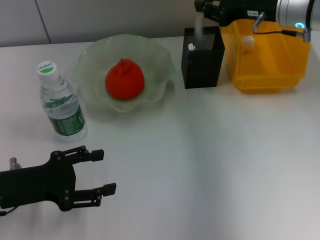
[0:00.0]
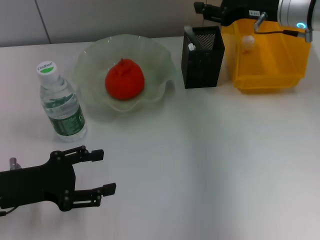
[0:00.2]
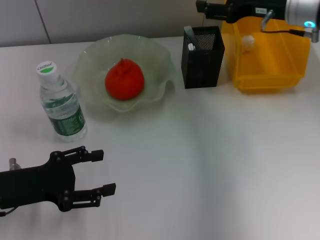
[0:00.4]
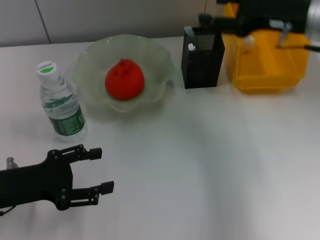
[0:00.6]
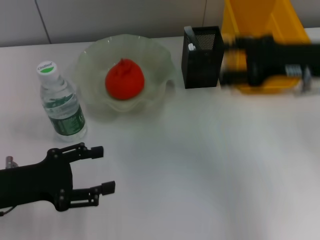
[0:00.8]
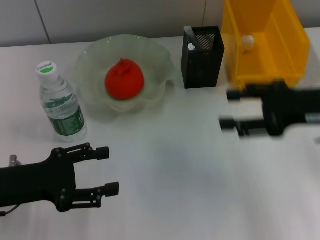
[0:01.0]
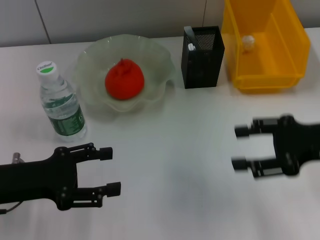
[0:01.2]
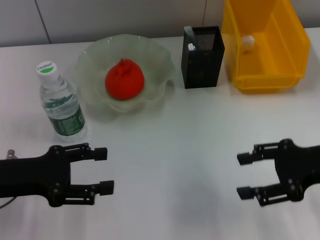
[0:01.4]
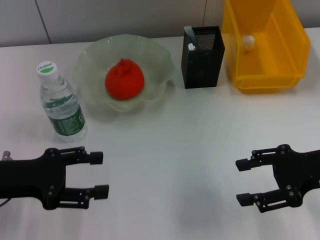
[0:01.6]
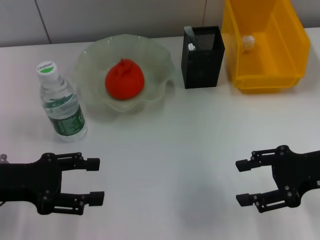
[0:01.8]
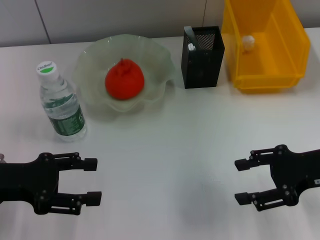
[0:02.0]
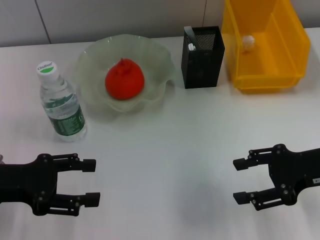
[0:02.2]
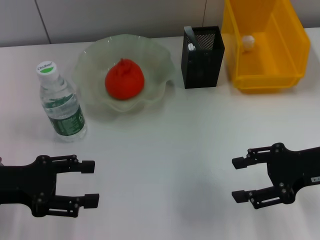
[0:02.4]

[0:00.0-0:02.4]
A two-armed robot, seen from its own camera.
0:00.0 to 0:01.2: The right gripper travels backward by approximately 20 cm, and opens its fingers.
0:01.2 to 0:02.4: The grippers stay close to where they were, moving slightly.

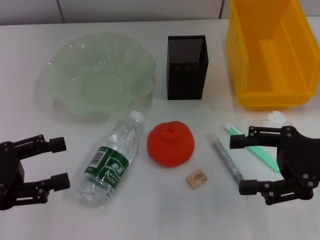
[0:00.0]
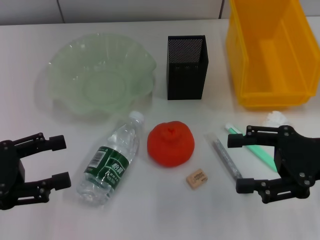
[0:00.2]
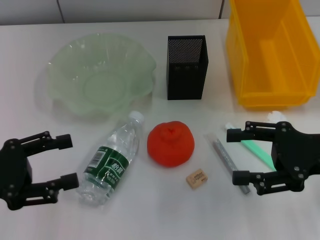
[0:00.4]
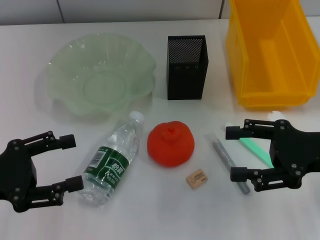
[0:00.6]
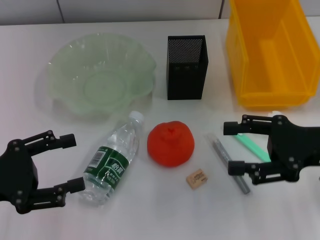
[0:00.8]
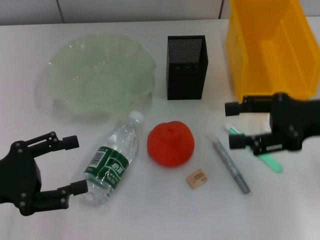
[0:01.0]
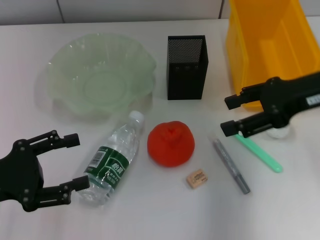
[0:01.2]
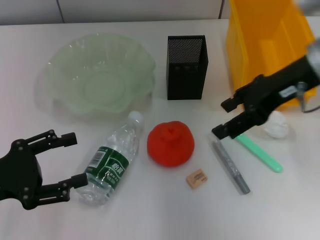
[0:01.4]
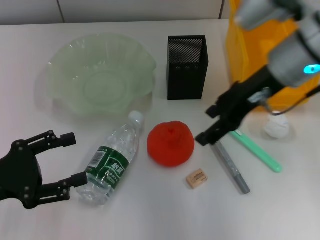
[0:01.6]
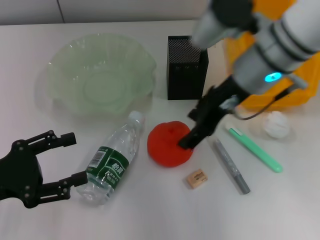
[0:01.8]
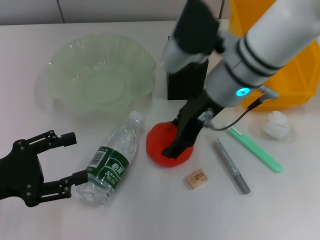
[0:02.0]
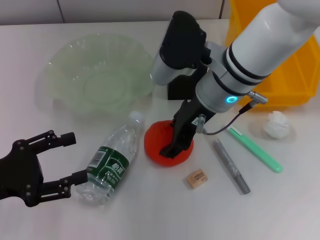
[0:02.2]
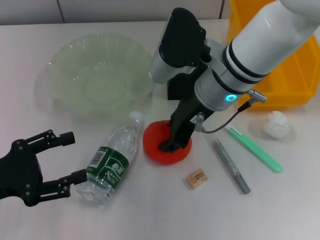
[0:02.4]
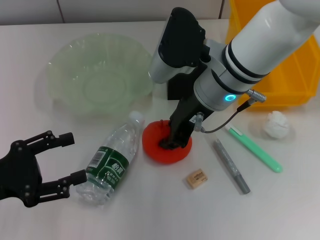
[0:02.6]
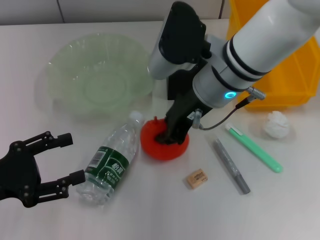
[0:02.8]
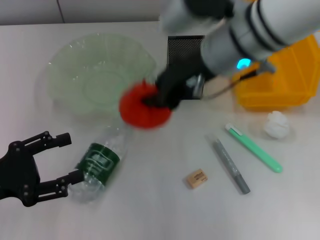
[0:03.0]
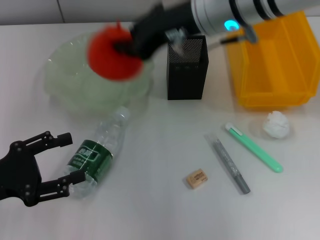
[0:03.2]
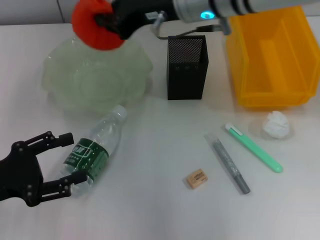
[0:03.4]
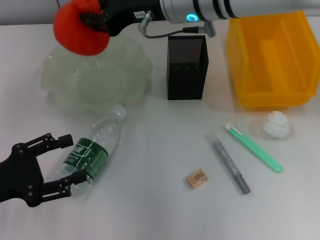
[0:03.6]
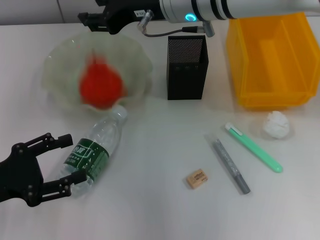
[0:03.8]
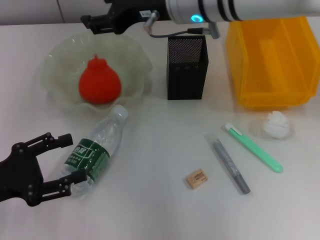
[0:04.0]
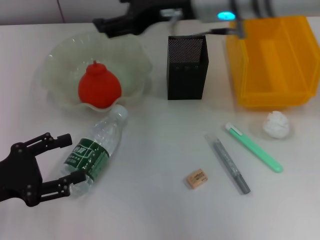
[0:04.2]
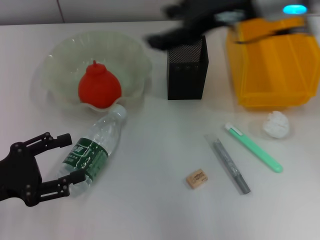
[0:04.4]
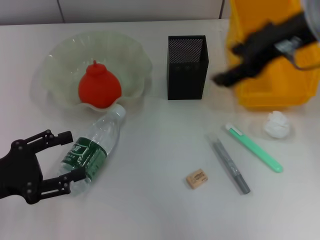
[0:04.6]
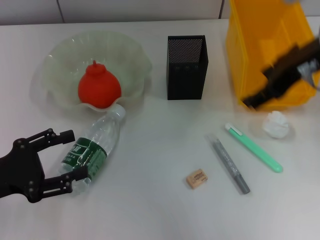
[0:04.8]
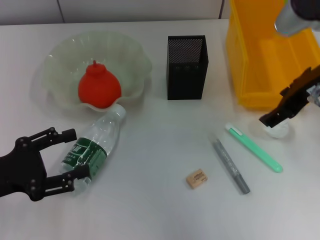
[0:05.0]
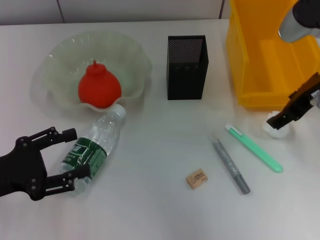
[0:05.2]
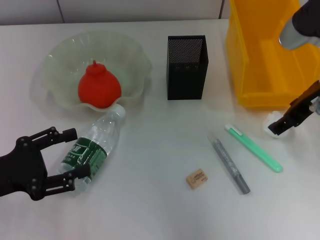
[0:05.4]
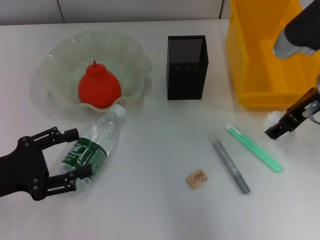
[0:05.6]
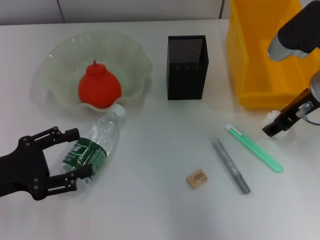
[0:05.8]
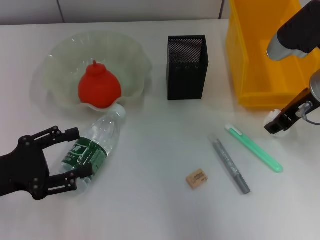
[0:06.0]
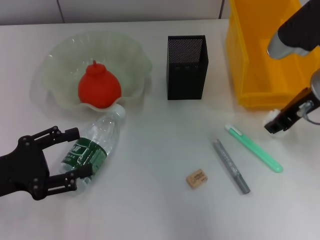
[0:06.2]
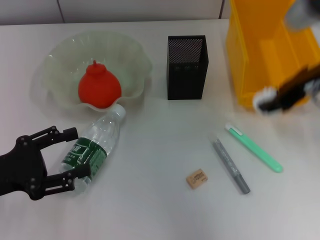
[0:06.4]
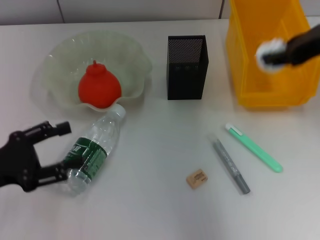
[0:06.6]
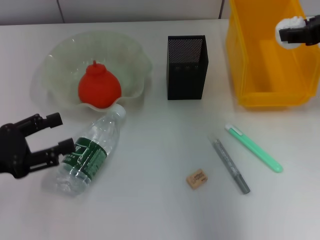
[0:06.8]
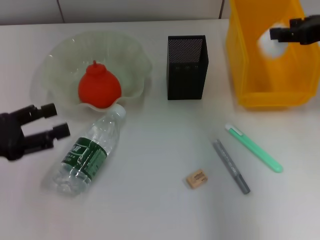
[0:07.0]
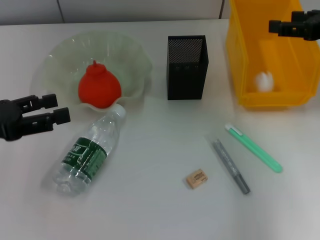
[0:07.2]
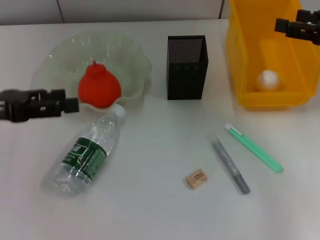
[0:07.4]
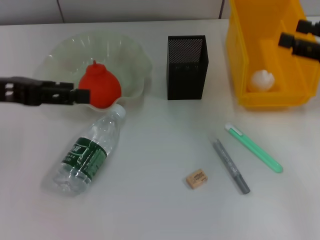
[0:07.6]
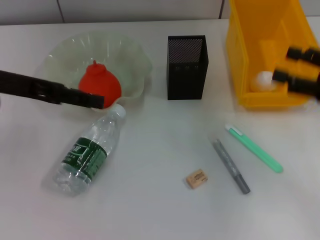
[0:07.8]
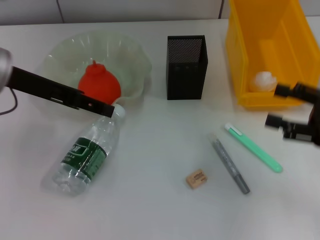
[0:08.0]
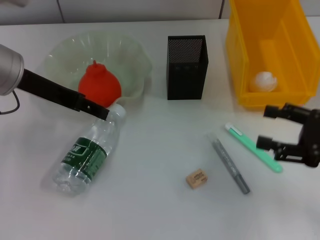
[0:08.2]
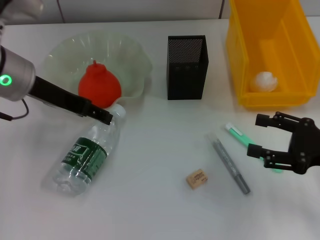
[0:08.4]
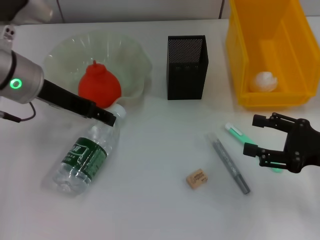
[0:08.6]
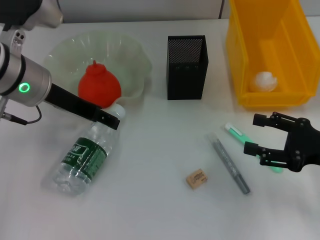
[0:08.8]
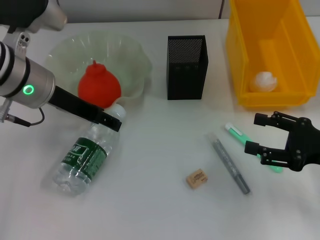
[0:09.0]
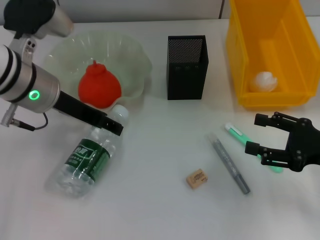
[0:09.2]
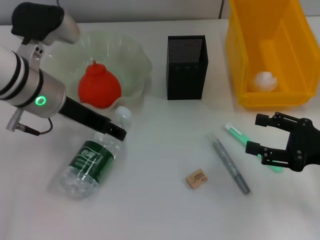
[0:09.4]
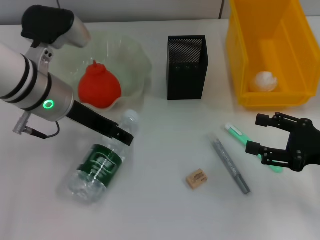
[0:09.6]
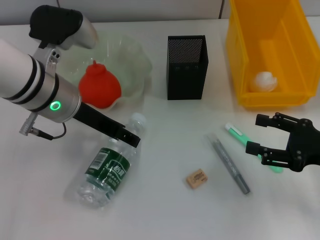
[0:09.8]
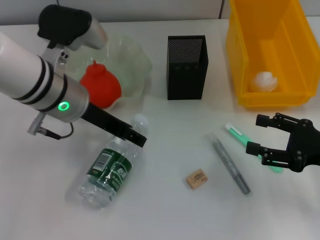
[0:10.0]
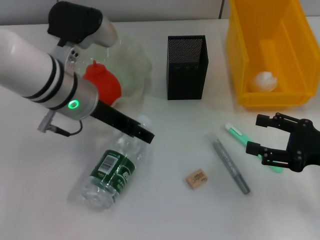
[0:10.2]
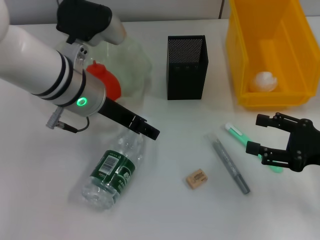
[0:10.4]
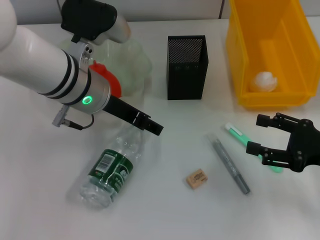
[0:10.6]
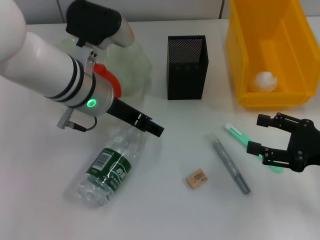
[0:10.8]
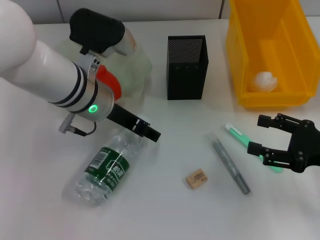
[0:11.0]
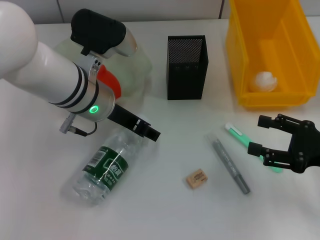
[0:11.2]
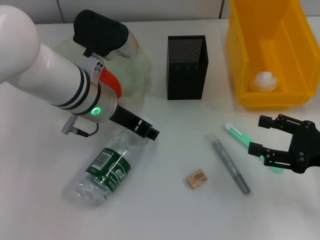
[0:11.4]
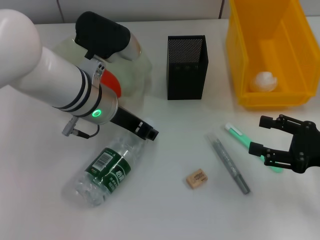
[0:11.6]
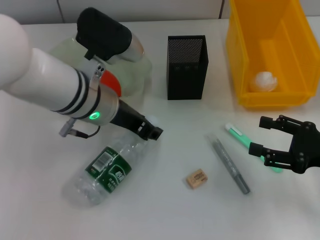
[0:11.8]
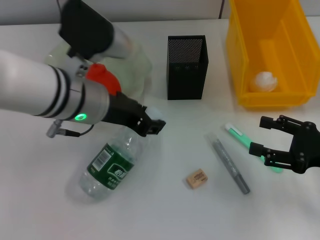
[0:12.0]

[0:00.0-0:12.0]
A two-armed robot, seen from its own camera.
Step, 0:04.0 to 0:05.8: Grab the paper ball with the right hand.
Step, 0:06.0 to 0:07.0: Place the paper ball into the trash can with the right hand.
Step, 0:07.2 to 0:11.4: Grab the water bottle with the left hand.
0:00.0 to 0:01.6: The right gripper moves to the left, forward and upward, about 20 cm.
0:01.6 to 0:03.0: The right gripper is displaced to the left by about 5 cm, and closes up.
0:03.0 to 0:04.4: The right gripper heads to the right, covering some 5 cm, and opens up.
0:04.4 to 0:06.0: The right gripper shifts some 15 cm downward and to the right.
0:06.0 to 0:07.6: The right gripper heads to the right, covering about 10 cm, and closes, then opens again; the left gripper is displaced upward and forward by approximately 15 cm.
0:07.6 to 0:09.0: The left gripper travels to the right and forward by about 10 cm, while the right gripper is displaced downward and backward by approximately 10 cm.
0:09.0 to 0:10.4: The left gripper is displaced to the right by some 5 cm.
0:10.4 to 0:12.0: The left gripper closes.

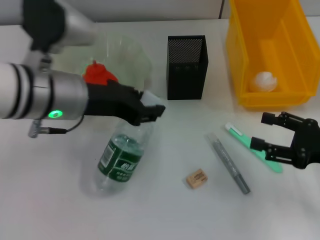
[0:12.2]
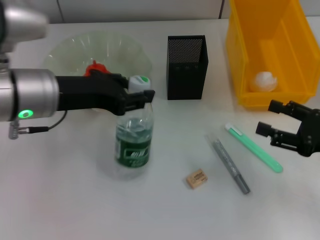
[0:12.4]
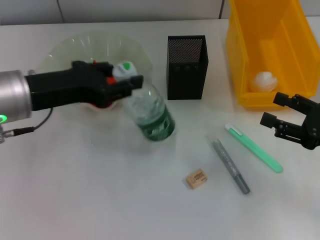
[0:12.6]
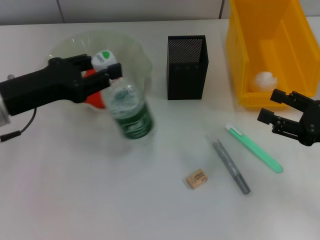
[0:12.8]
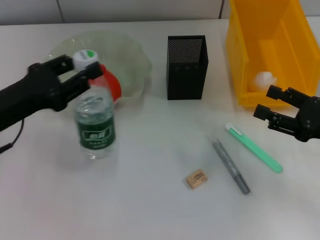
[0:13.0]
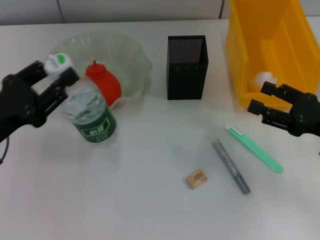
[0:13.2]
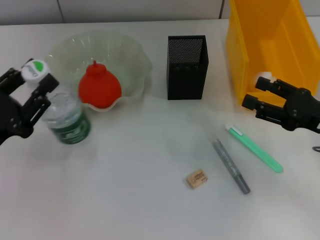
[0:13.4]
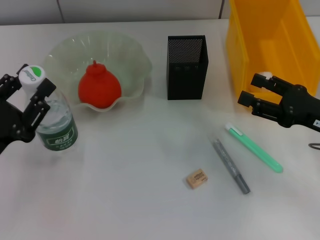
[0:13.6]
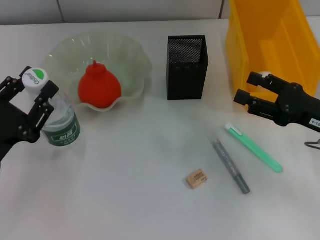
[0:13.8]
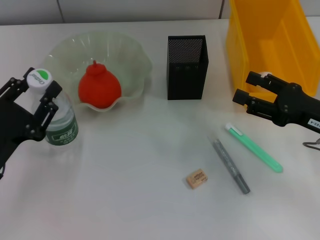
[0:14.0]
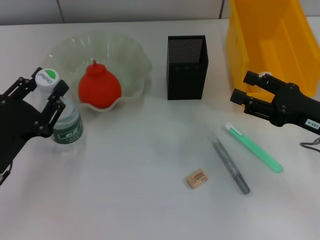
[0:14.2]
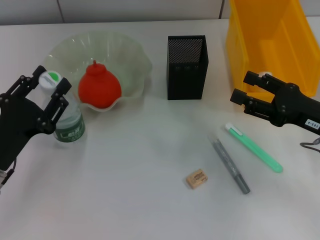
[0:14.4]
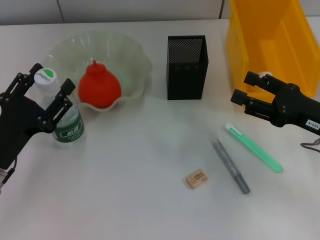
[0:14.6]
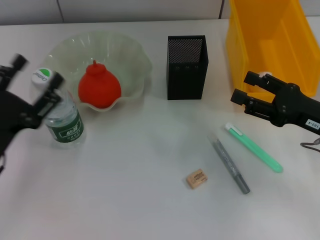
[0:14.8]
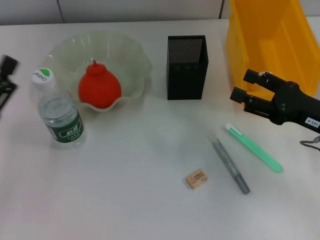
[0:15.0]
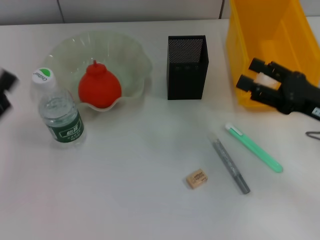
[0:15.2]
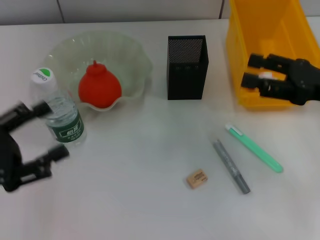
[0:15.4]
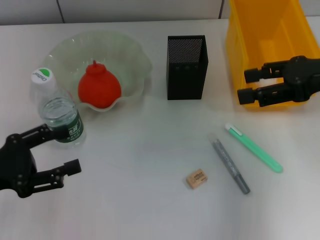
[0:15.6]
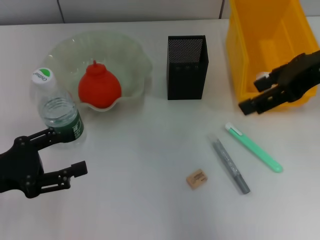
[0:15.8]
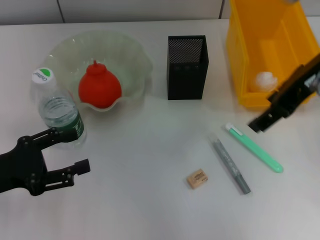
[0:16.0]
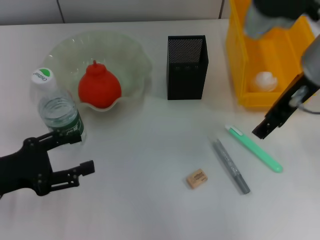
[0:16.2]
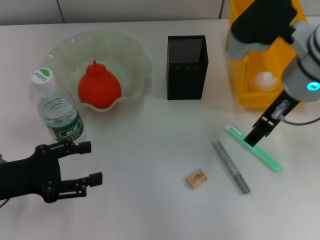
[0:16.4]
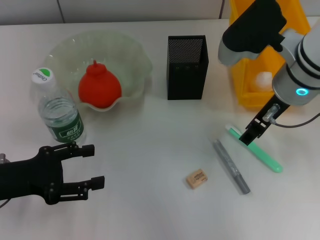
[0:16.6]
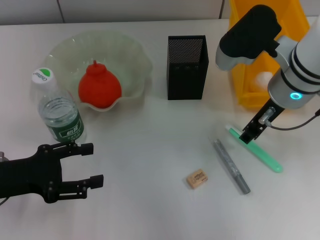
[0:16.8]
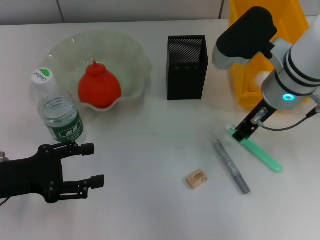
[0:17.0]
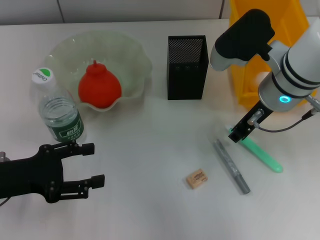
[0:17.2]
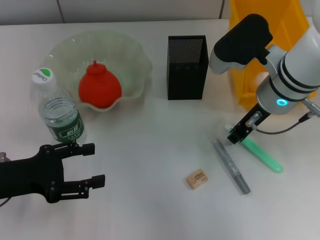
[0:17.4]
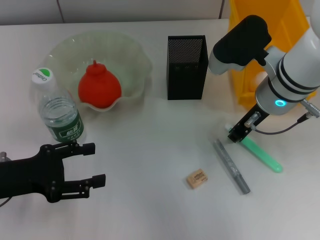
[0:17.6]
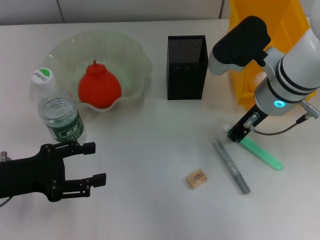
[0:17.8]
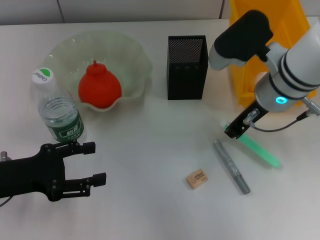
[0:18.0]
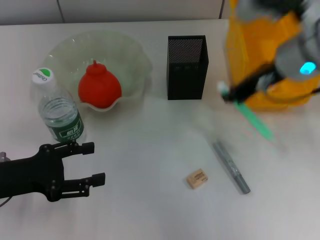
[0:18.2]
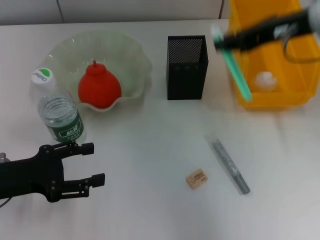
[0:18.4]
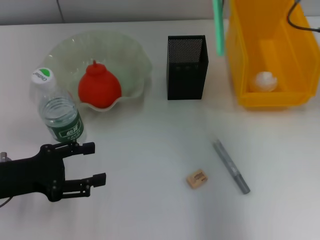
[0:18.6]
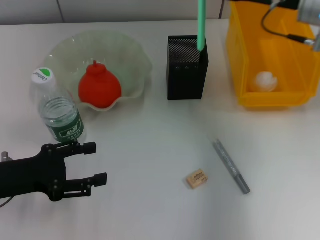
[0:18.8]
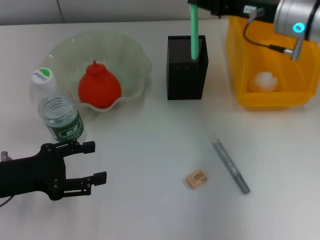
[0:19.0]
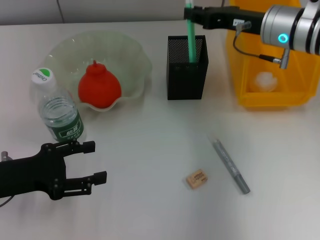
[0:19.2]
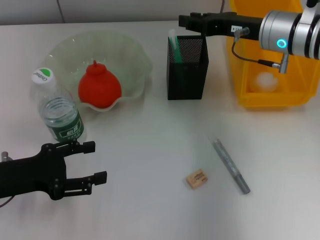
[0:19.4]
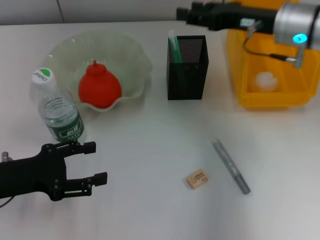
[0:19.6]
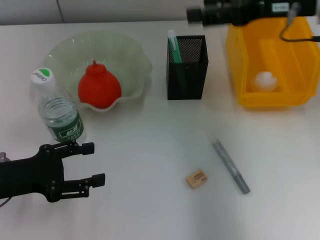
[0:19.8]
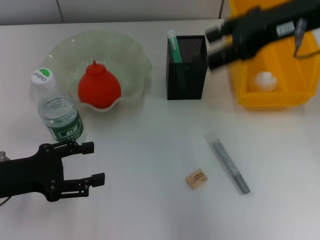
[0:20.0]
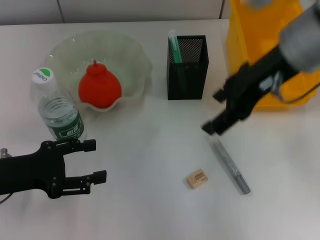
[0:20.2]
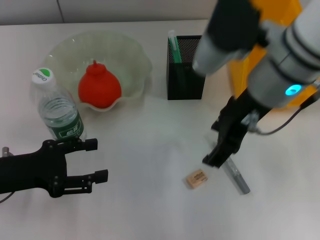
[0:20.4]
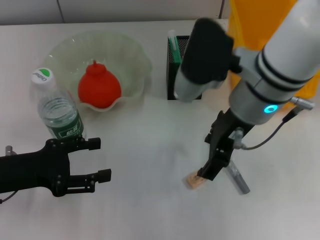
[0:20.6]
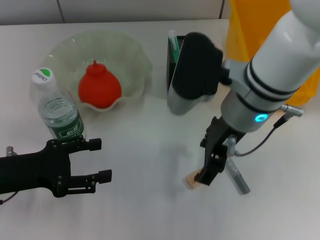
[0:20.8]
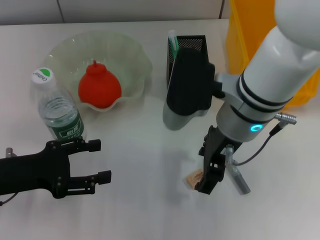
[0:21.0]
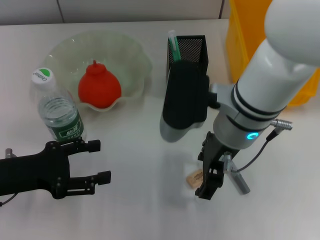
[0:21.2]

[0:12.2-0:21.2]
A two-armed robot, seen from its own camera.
Step, 0:12.2 to 0:14.6: Place the water bottle on the table with the left hand.
Step, 0:14.8 to 0:17.6: Grab the blue utility knife with the right hand.
Step, 0:17.8 to 0:19.2: Place the blue utility knife into the pen holder with the right hand.
0:12.2 to 0:13.8: The left gripper is displaced to the left, downward and backward by some 20 cm.
0:13.8 to 0:15.2: The left gripper opens its fingers.
0:15.2 to 0:16.6: The right gripper travels to the left, upward and forward by roughly 15 cm.
0:16.6 to 0:18.2: The right gripper closes its fingers.
0:18.2 to 0:19.8: The right gripper goes up and down, about 10 cm each way, reversing 2 times, and opens its fingers.
0:19.8 to 0:21.2: The right gripper shifts roughly 20 cm to the left, downward and backward.
